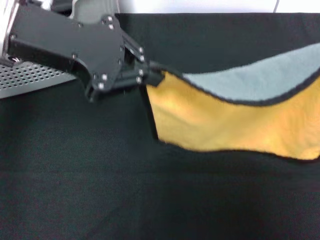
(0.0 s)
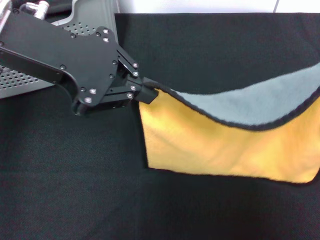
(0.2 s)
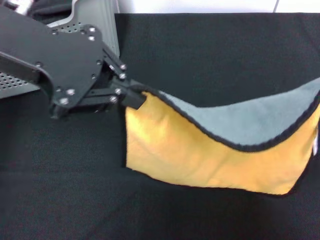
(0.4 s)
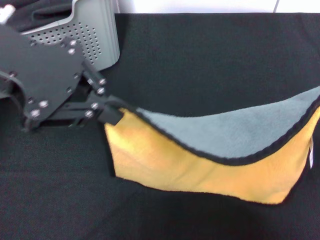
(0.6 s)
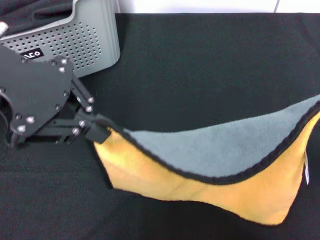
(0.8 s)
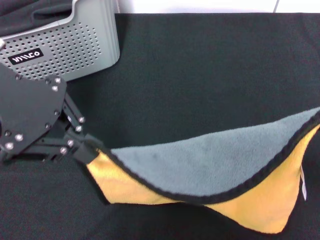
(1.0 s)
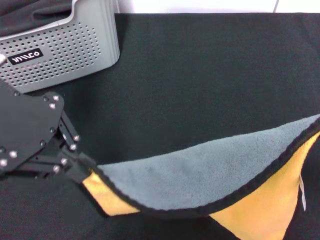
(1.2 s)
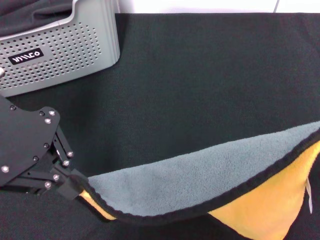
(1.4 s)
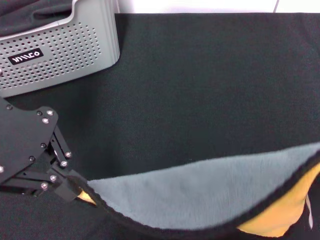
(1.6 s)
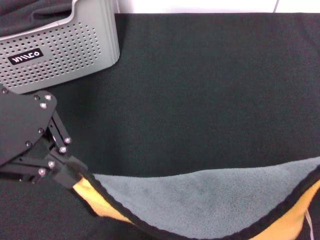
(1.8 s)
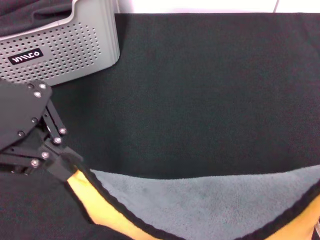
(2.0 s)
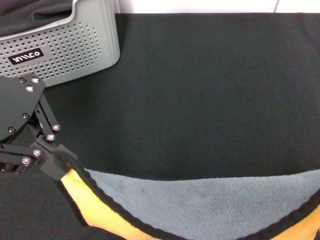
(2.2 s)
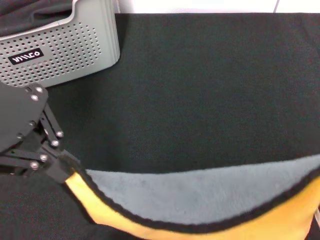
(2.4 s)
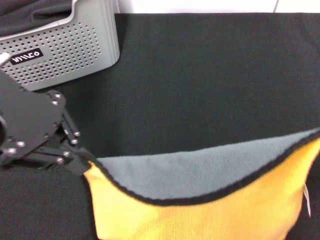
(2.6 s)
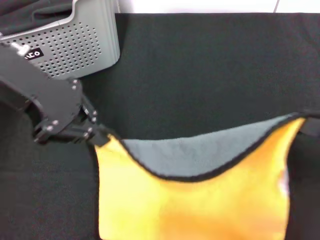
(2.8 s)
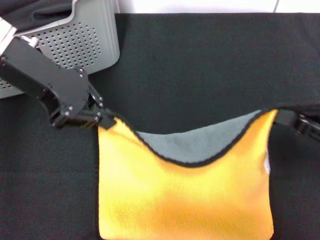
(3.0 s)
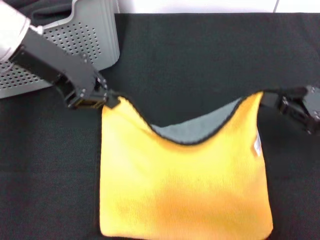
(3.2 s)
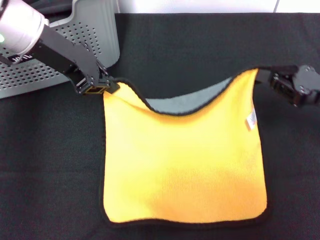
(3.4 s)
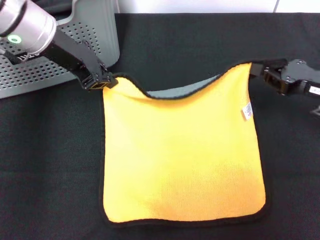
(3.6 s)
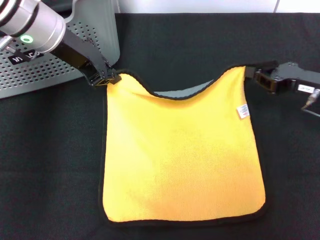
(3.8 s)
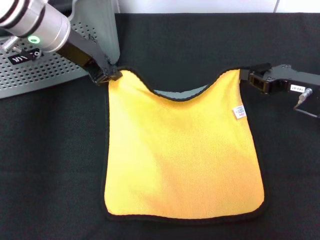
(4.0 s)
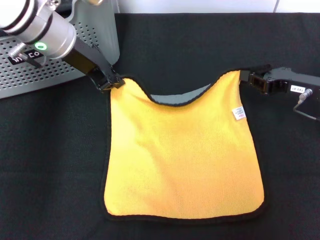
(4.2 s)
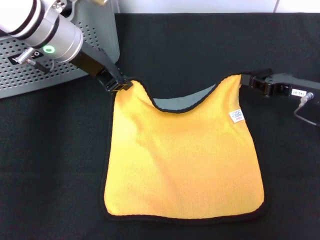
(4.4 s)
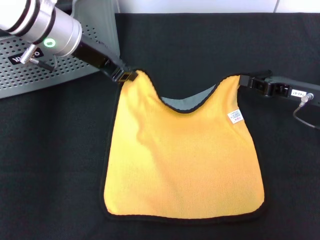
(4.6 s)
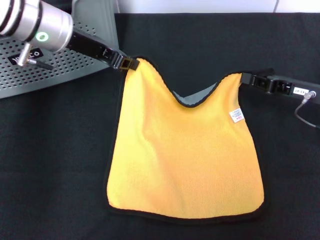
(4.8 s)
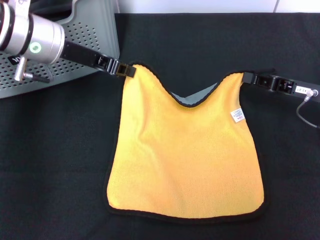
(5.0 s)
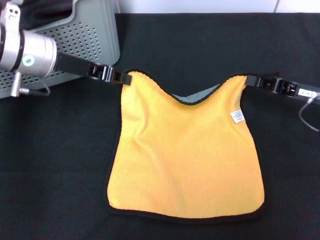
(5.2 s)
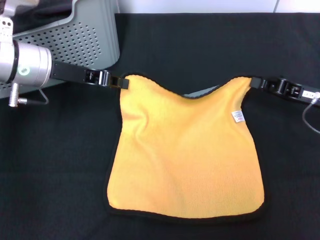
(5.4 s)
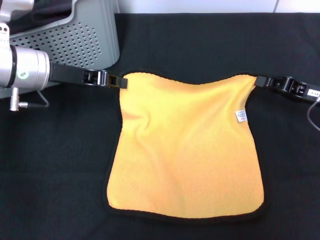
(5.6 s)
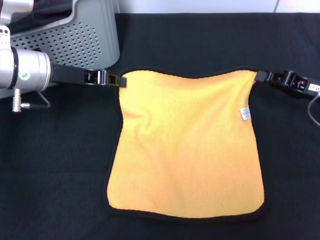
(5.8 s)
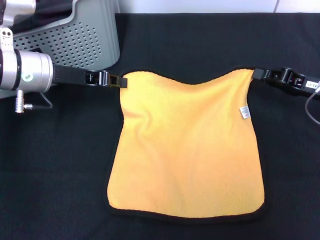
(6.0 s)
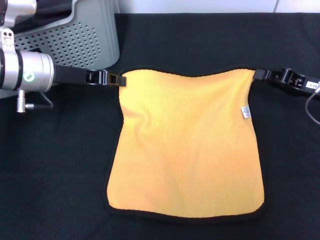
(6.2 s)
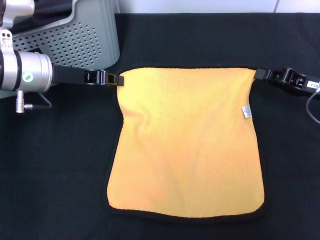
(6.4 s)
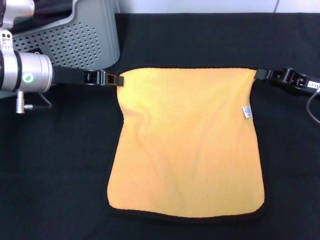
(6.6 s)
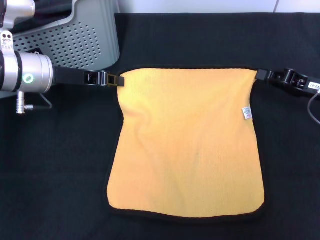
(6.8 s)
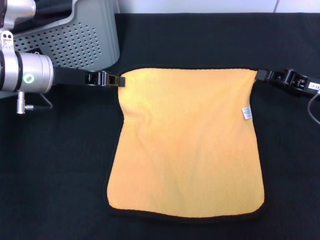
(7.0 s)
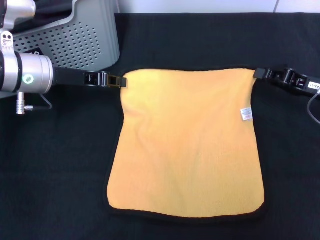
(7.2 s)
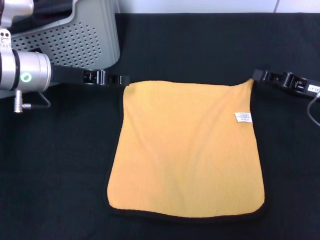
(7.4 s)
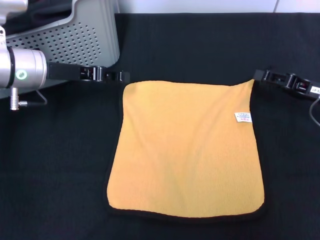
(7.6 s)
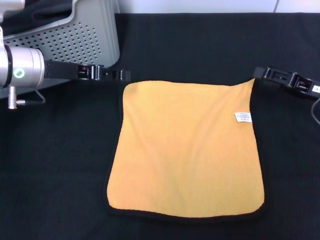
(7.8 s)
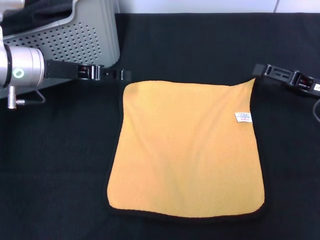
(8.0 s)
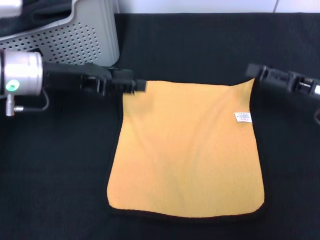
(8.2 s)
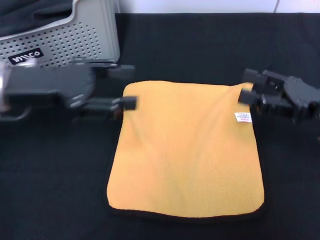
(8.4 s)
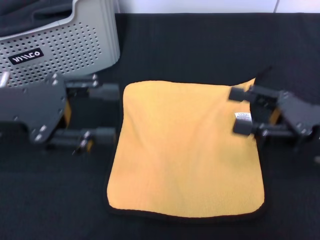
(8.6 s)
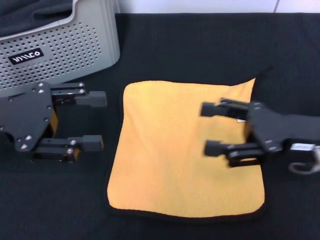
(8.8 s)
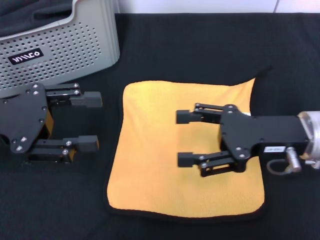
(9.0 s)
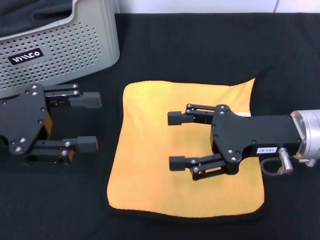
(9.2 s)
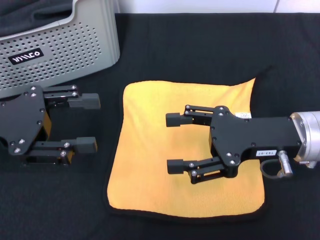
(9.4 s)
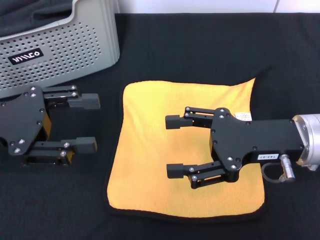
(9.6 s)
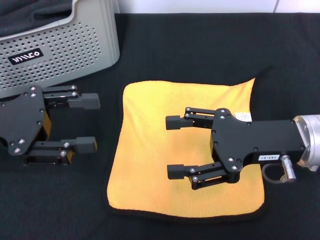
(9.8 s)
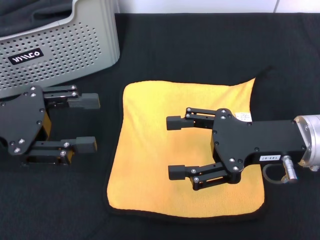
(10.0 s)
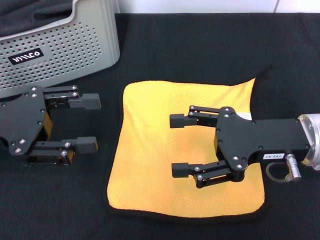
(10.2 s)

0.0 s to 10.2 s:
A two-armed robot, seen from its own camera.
Task of the whole recording: pick up the towel from the storage box and lay it flat on the black tablecloth.
Step, 0.0 to 7.6 s: Spread the towel flat with the right gripper.
0.0 to 1.4 s: The right gripper shifts by approximately 5 cm.
1.4 to 3.0 s: The left gripper travels forward by approximately 5 cm.
3.0 to 4.4 s: The right gripper goes about 10 cm forward. Meanwhile the left gripper goes about 10 cm downward and forward.
4.4 to 5.8 s: The left gripper moves to the left and downward, roughly 10 cm.
5.8 to 7.2 s: Neither gripper changes place.
7.2 to 8.8 s: The two grippers go some 10 cm backward and to the left. The left gripper opens up, while the right gripper opens its fingers.
8.8 to 10.2 s: The grippers stay close to where they were, moving slightly.

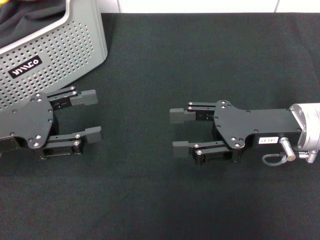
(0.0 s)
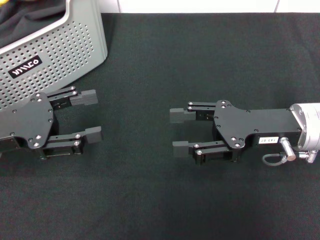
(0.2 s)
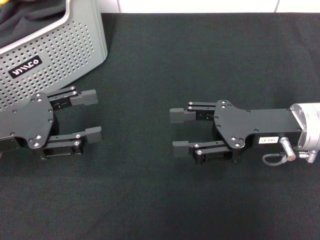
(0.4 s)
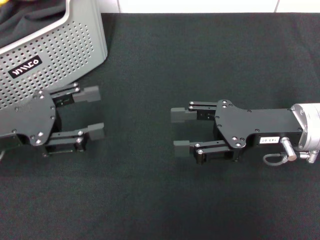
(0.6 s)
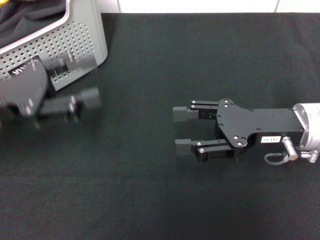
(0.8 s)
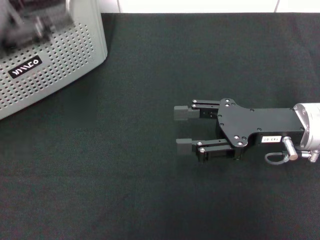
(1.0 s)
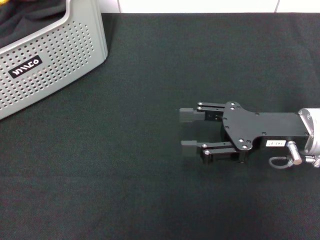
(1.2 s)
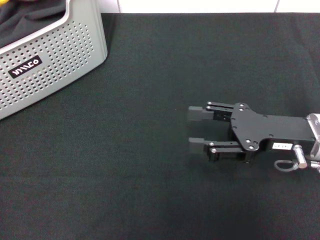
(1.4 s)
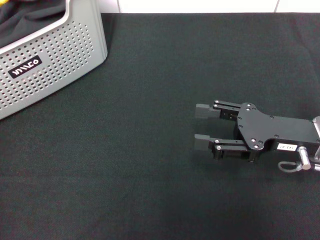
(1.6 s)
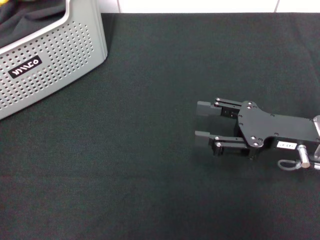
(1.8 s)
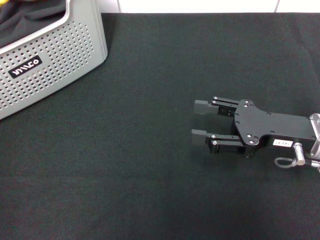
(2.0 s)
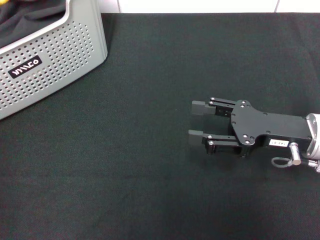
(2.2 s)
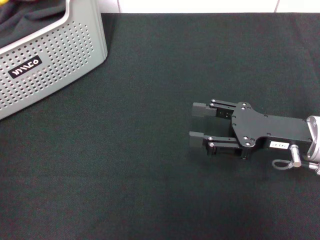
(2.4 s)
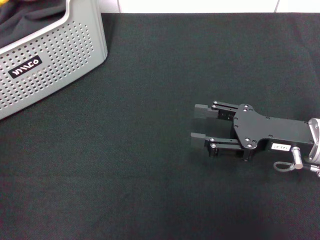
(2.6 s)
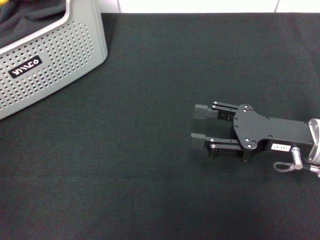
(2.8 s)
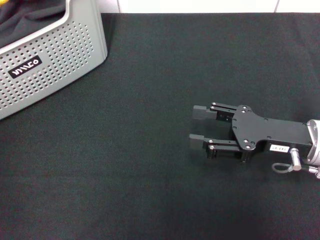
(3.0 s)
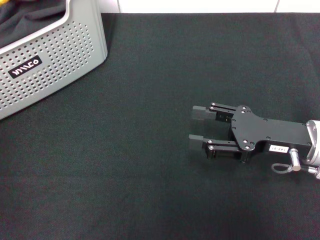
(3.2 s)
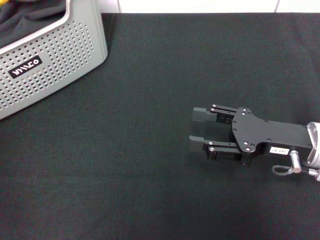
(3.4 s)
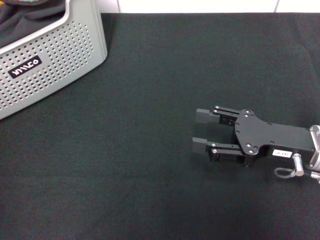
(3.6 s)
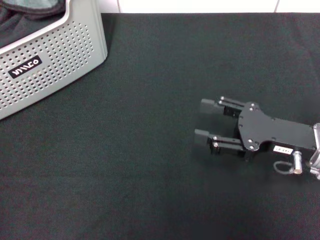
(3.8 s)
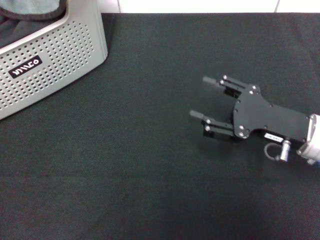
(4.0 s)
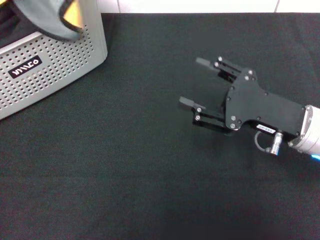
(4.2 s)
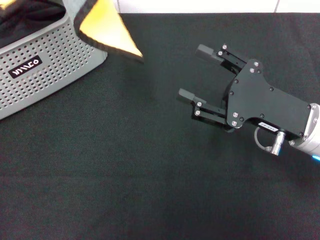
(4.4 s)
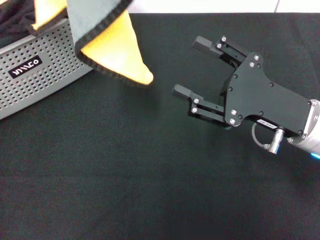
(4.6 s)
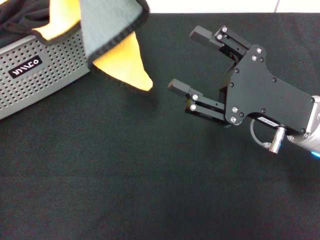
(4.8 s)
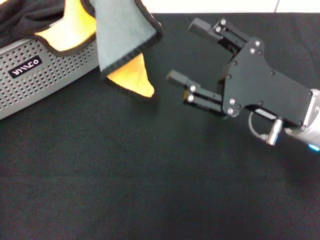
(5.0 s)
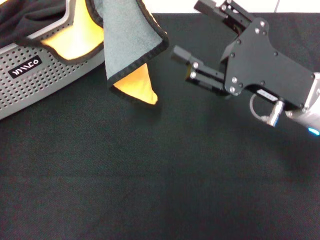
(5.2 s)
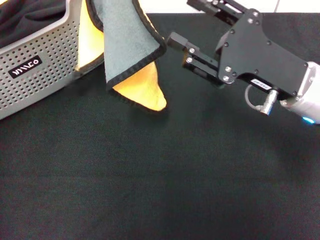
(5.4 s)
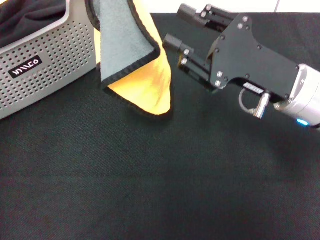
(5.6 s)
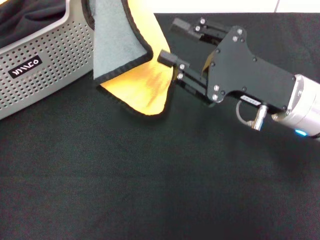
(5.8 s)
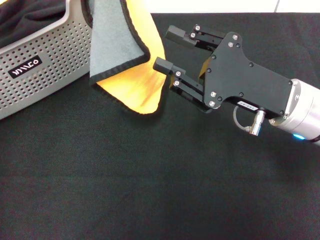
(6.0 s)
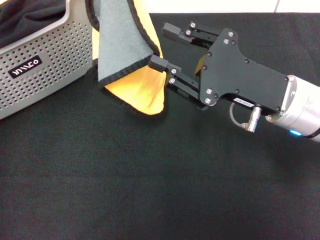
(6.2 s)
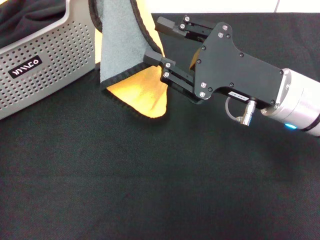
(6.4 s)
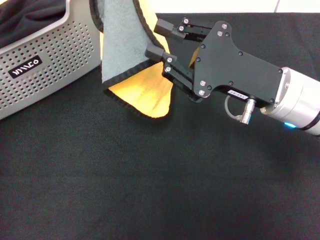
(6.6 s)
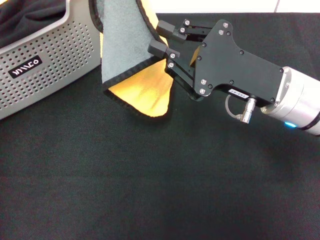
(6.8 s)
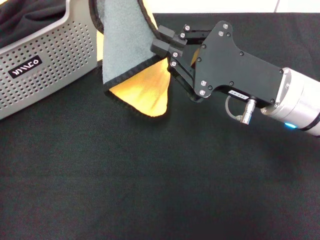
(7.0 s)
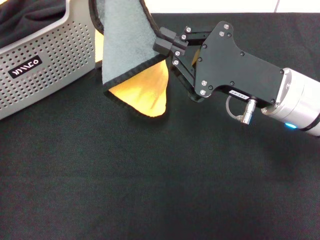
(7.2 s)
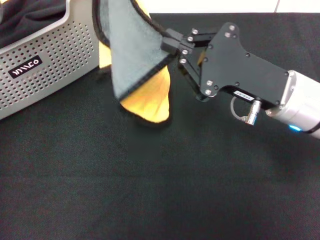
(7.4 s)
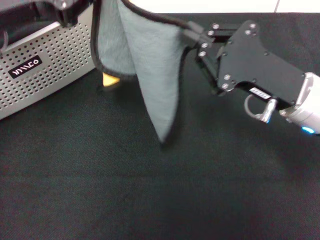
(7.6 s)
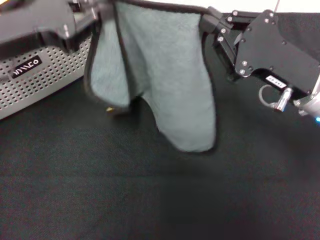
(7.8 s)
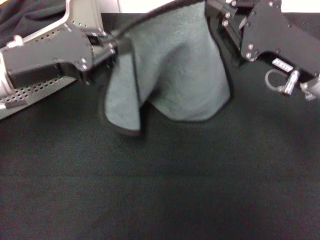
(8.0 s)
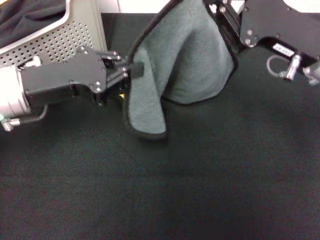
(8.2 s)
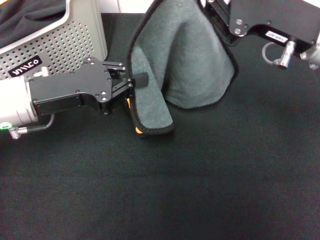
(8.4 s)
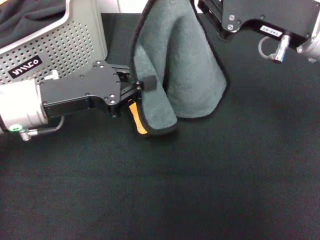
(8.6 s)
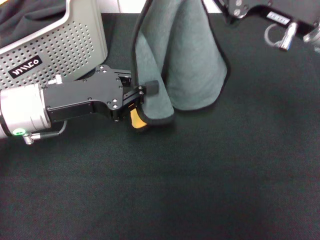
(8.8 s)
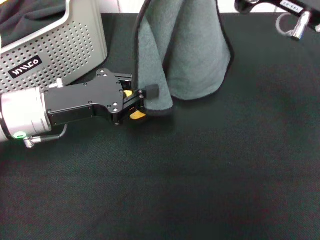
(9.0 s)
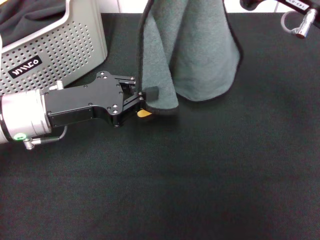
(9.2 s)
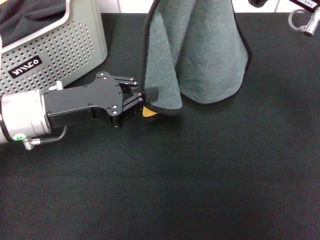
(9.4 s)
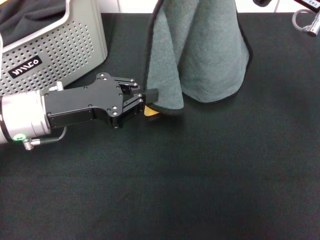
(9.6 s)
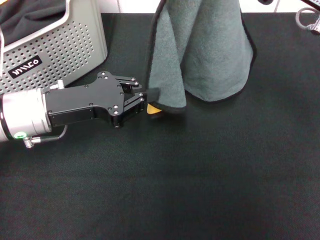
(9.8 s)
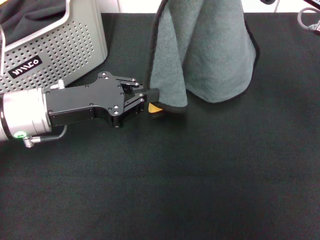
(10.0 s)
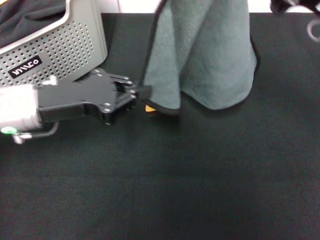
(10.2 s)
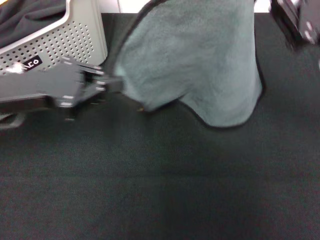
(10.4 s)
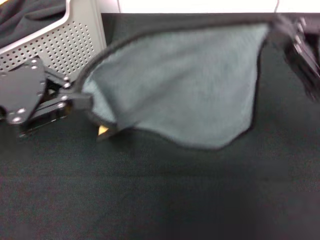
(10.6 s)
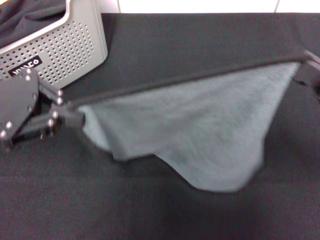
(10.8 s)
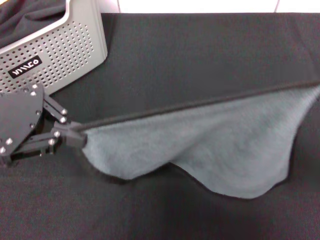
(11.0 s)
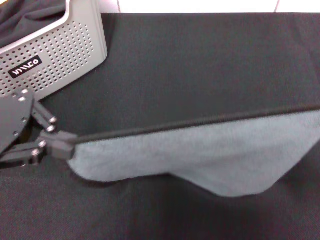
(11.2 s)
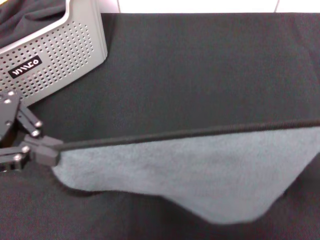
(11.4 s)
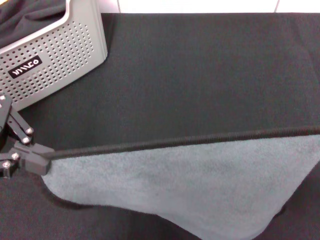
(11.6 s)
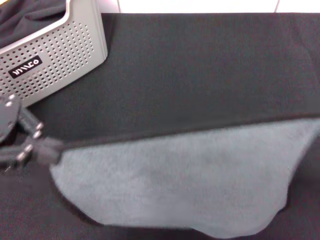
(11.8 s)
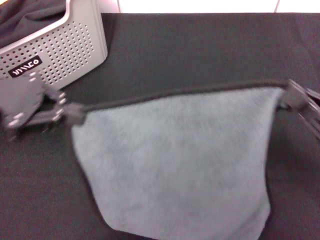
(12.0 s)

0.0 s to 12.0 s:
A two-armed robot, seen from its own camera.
Task of the whole recording: pick up the towel from the storage box and lay it flat on the black tablecloth.
Step, 0.0 to 3.4 s: Pick up a towel with the left gripper.
Step, 3.6 to 7.2 s: Spread the towel flat with the left gripper.
0.0 to 1.6 s: The left gripper shifts some 20 cm upward, forward and to the left.
3.0 to 4.4 s: The left gripper heads backward, upward and to the right, covering approximately 15 cm, and closes up.
4.4 to 6.0 s: The right gripper closes its fingers. The left gripper goes roughly 5 cm to the right.
6.0 to 7.6 s: The right gripper closes its fingers.
7.6 to 9.0 s: The left gripper shifts roughly 10 cm downward. The right gripper is displaced upward by some 10 cm.
9.0 to 10.4 s: The left gripper moves some 5 cm. Meanwhile the right gripper goes some 5 cm to the right.
10.4 to 12.0 s: The right gripper goes about 10 cm downward and backward.
